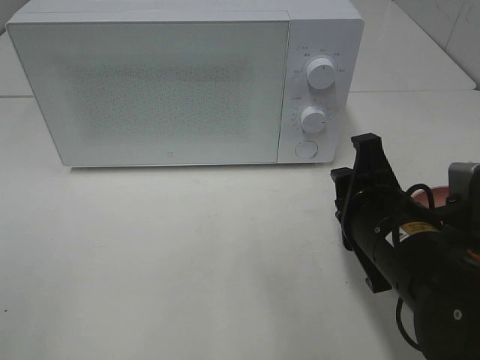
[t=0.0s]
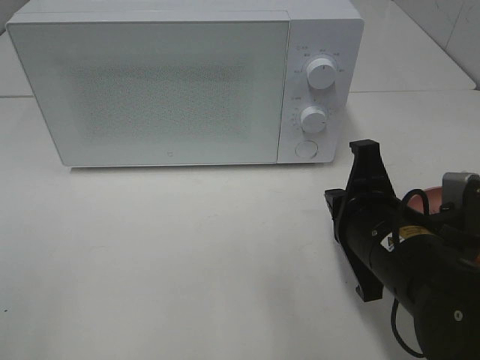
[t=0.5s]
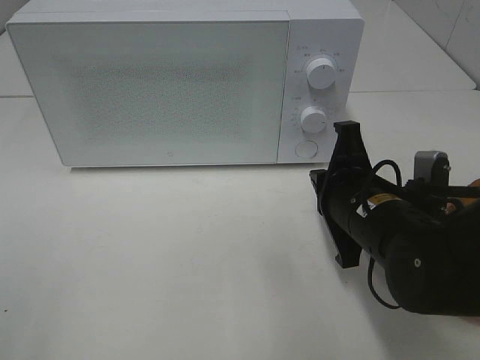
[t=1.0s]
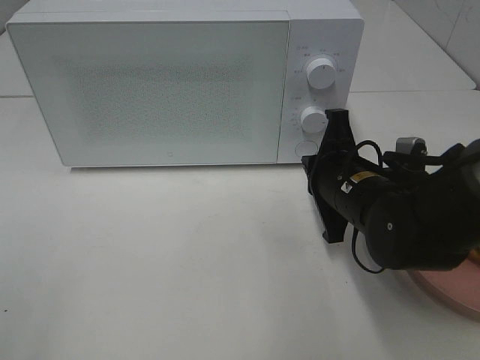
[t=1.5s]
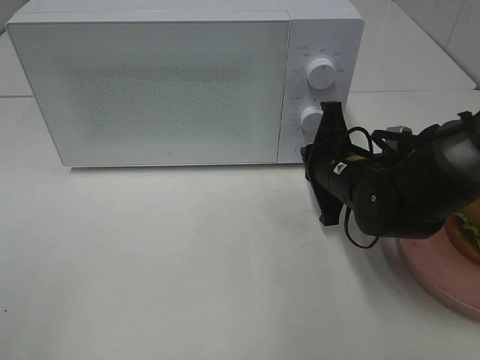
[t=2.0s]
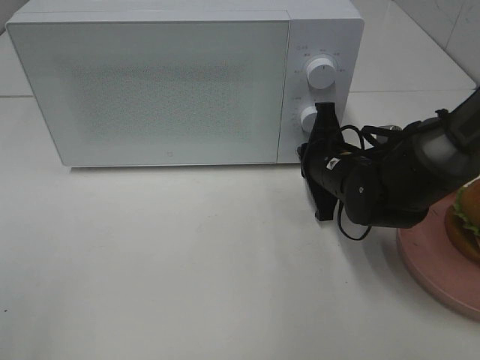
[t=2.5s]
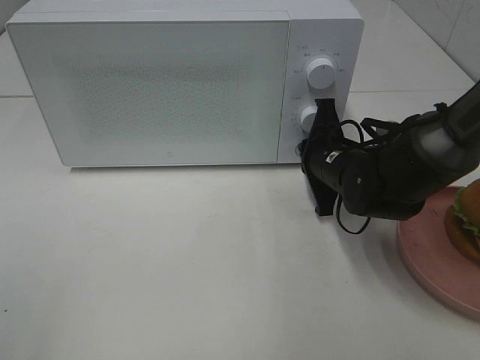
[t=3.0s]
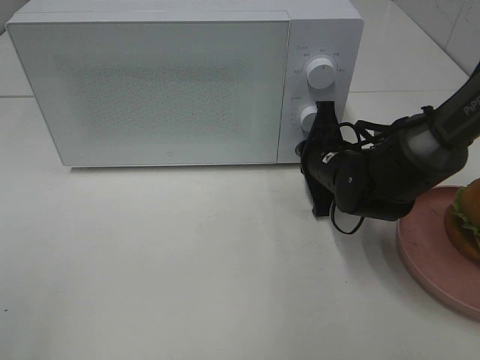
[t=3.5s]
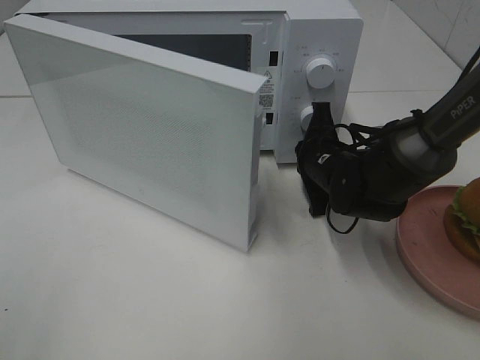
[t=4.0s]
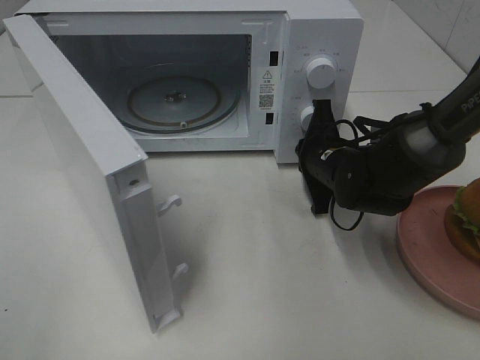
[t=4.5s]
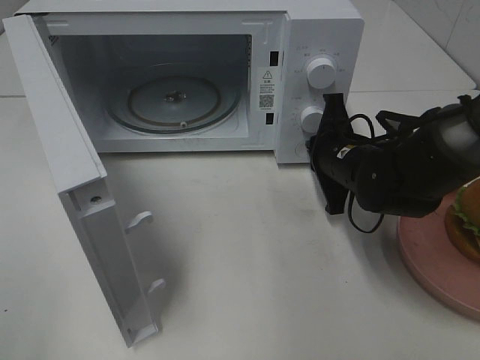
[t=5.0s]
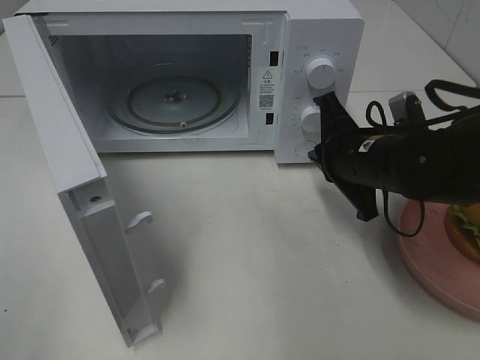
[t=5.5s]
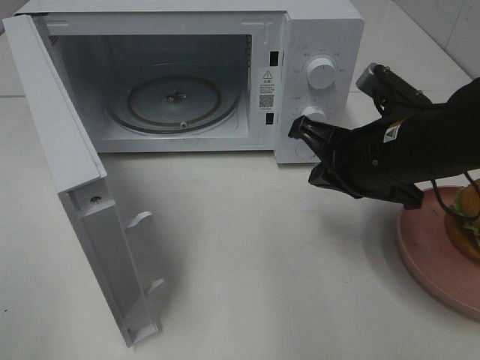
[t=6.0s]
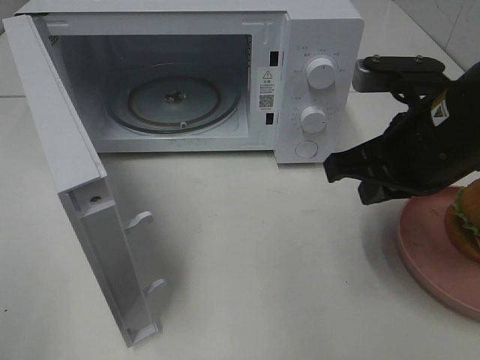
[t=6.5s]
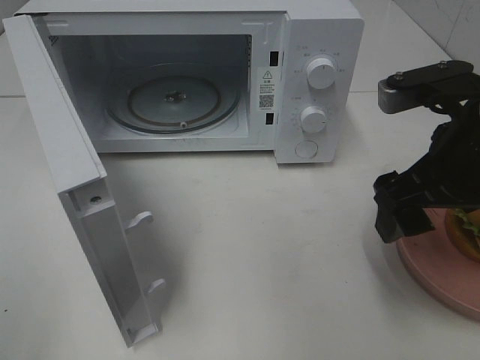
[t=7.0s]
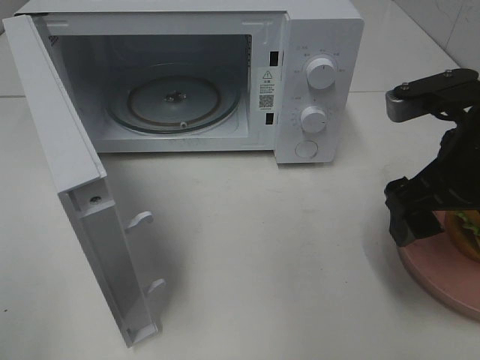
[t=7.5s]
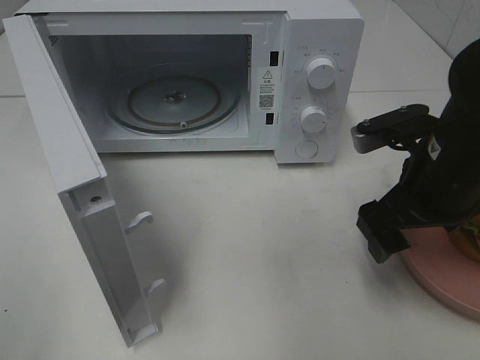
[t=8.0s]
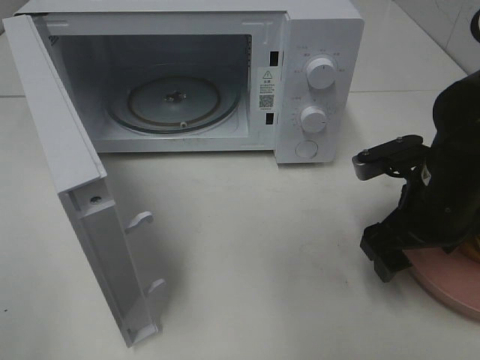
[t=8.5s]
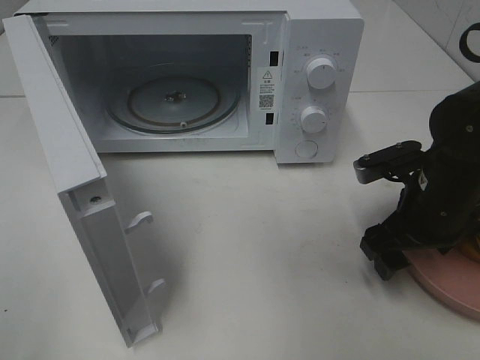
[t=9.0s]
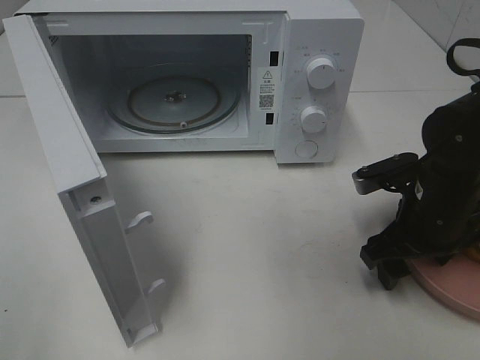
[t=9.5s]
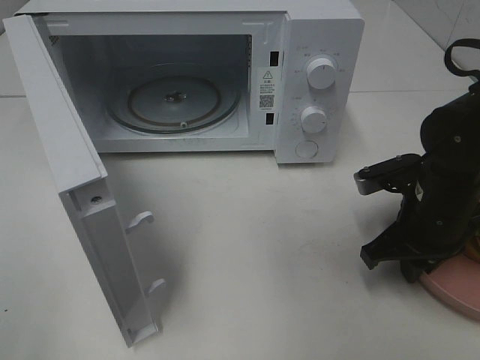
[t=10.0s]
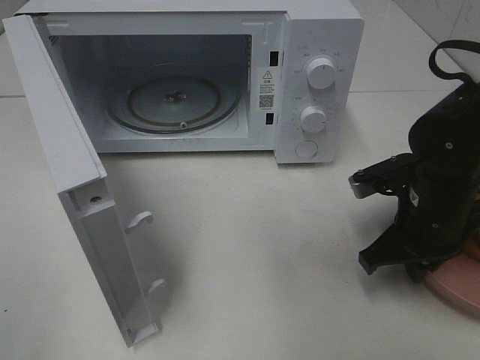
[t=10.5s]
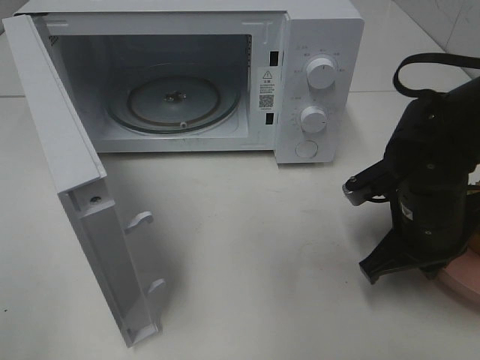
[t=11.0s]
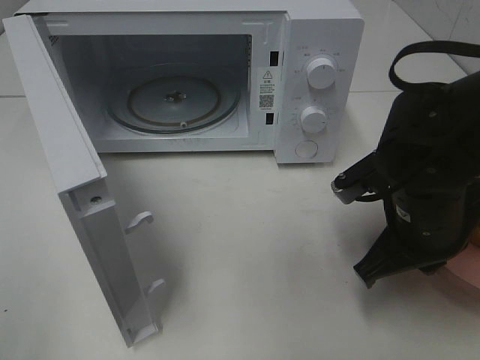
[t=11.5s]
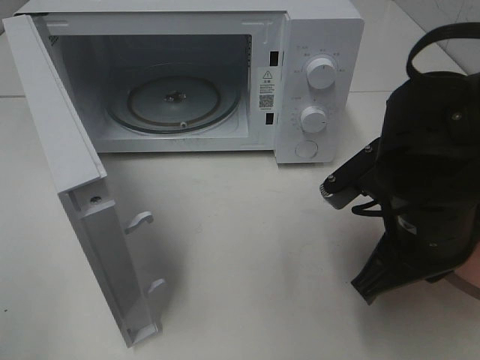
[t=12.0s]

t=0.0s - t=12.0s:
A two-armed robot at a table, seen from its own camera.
Task of the whole recording: Heat the burger.
Step, t=0.0s - t=5.0s: Right hand: press the switch.
Step, t=5.5s - t=10.5s: Right hand: grab the plate with the hamburger.
t=0.0s - t=2.0s: The right gripper is displaced forward by about 15 cm, and closes its fingers.
t=2.0s - t=4.0s: The right gripper ends up roughly 5 cm from where it was.
t=4.0s - t=6.0s: The right gripper moves upward and backward, some 15 cm.
t=6.0s - t=8.0s: The right gripper opens up.
t=8.0s - t=10.0s: The right gripper moves downward, some 5 cm, and closes its fingers.
t=10.0s - t=12.0s: The right gripper shifts about 10 cm backward, to the left and upward.

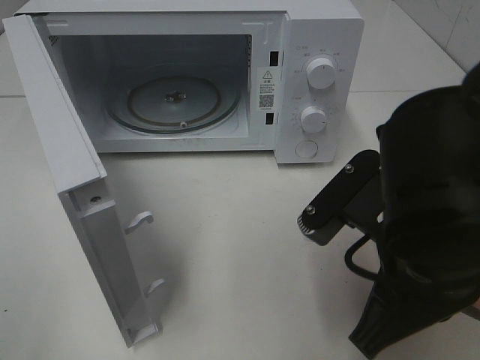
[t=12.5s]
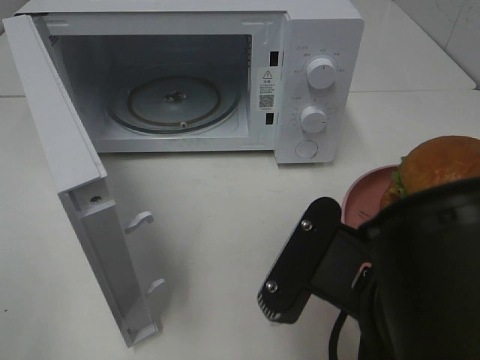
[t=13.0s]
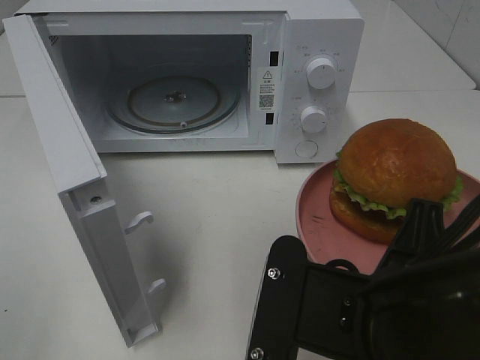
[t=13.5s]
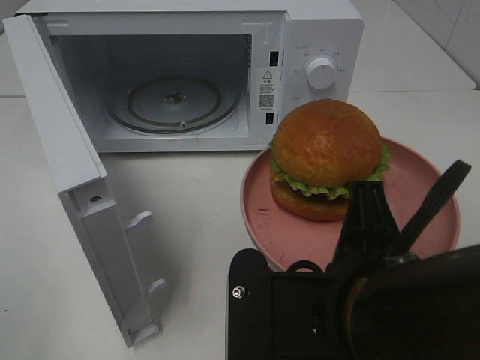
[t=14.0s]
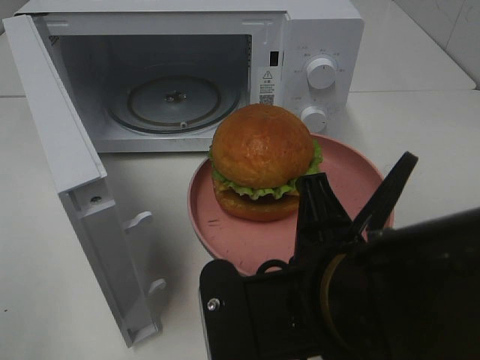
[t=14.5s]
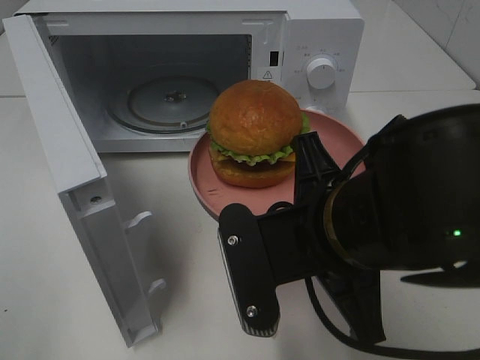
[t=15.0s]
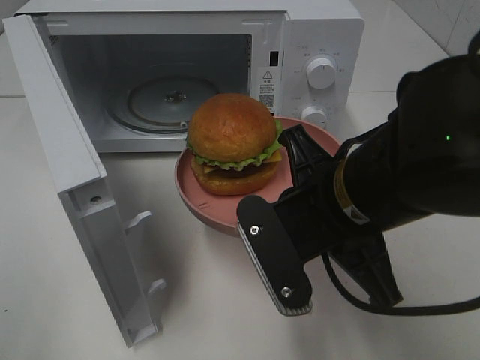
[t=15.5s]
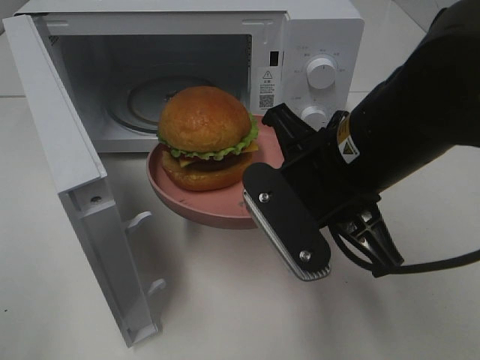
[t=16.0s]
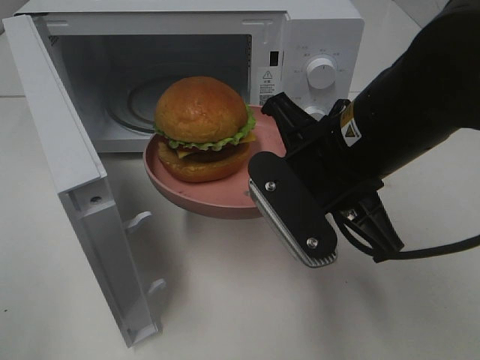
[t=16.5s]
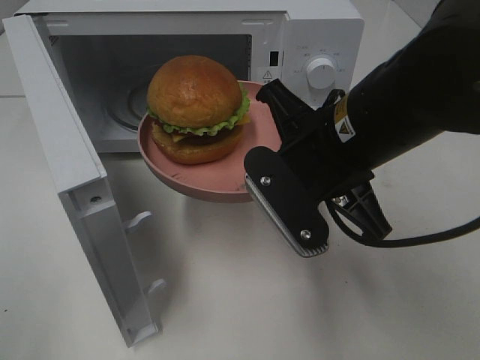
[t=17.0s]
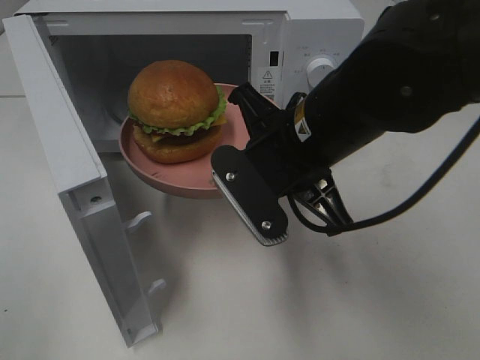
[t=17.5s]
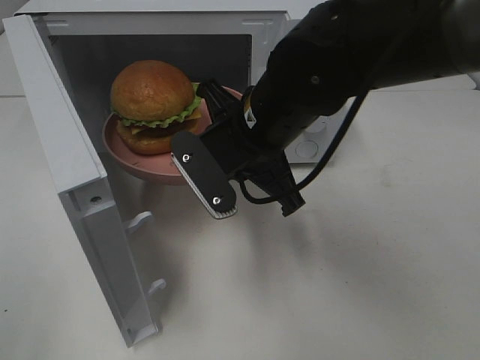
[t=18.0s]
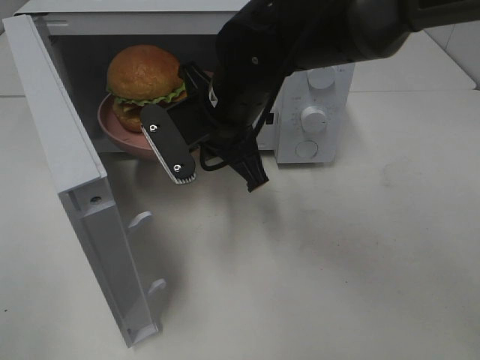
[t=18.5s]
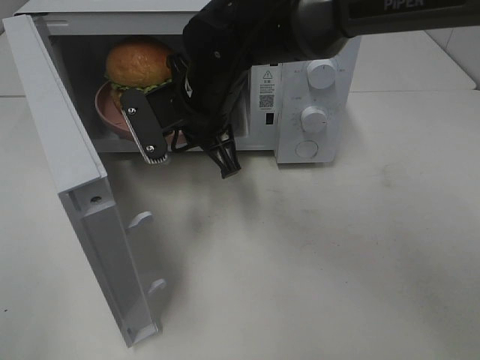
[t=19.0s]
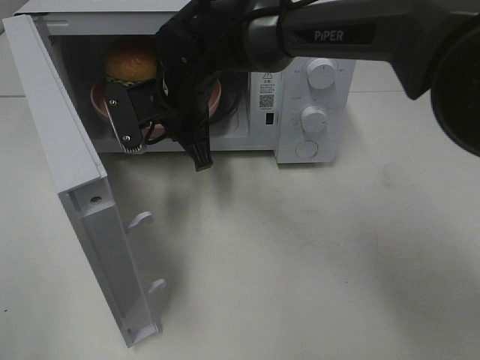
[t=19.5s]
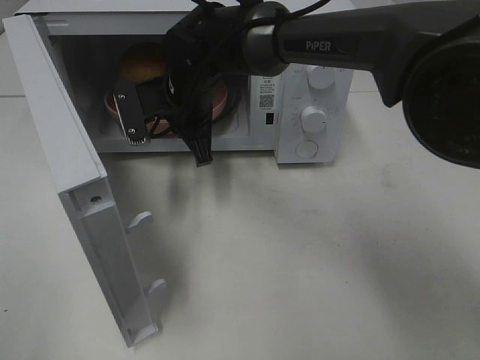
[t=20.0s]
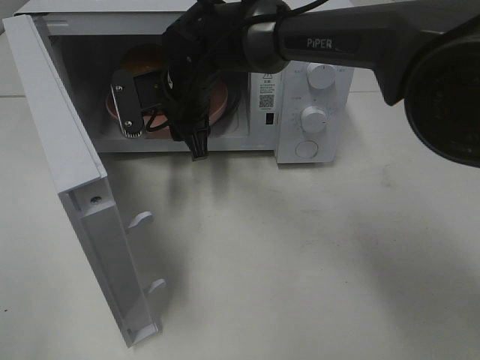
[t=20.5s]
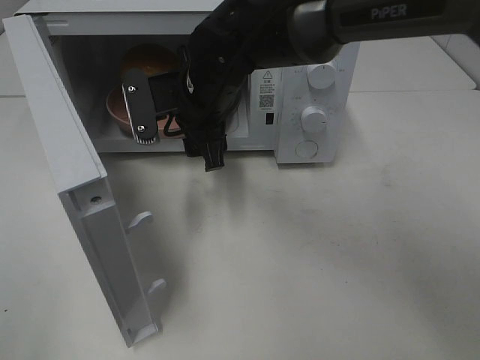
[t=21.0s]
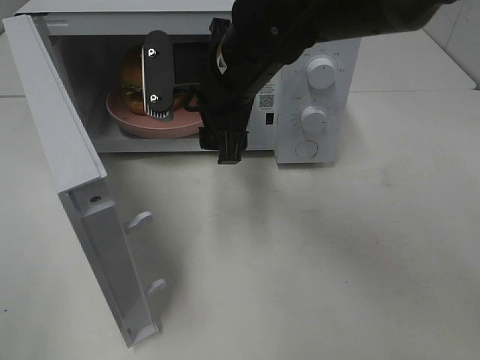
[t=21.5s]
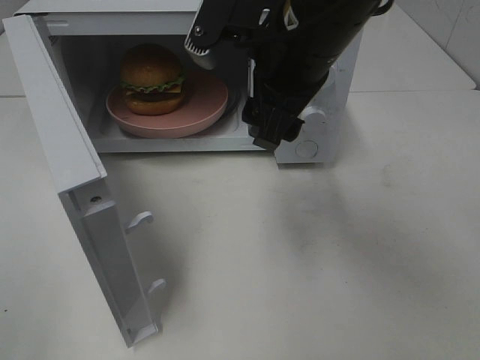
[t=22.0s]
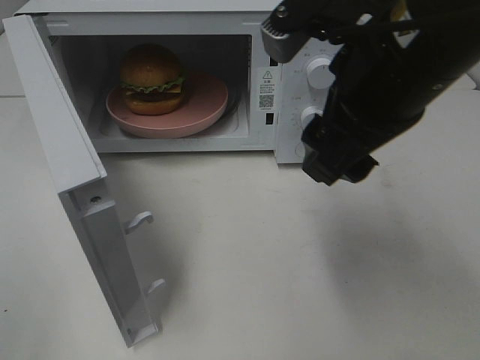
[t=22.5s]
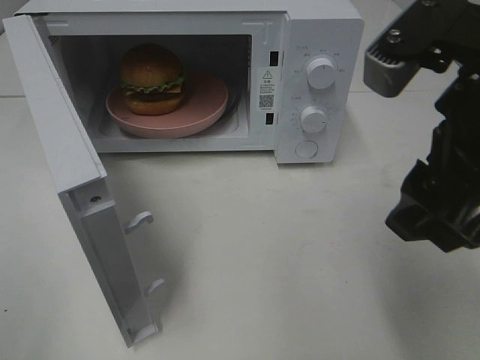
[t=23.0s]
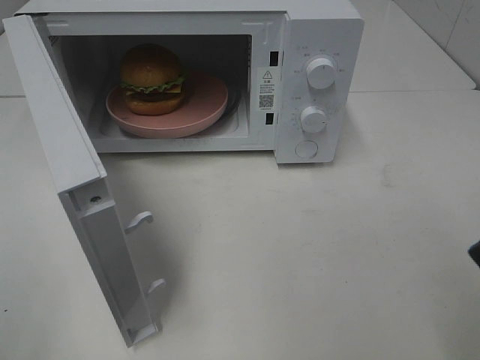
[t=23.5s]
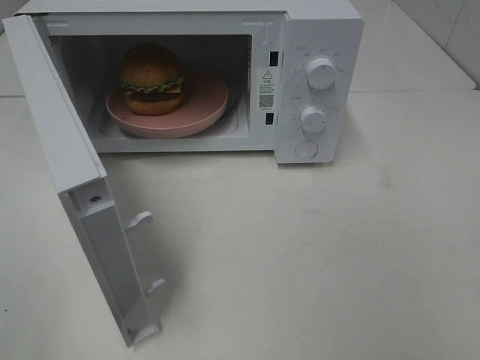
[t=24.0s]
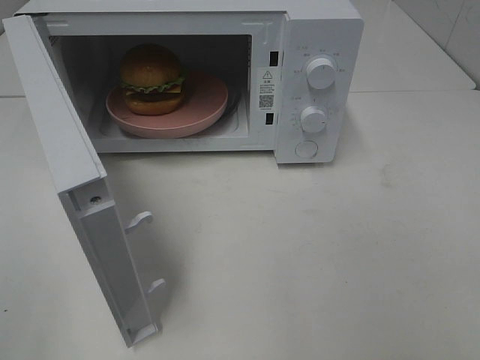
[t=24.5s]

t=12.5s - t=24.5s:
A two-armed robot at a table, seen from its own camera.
Task of the whole recording: Heat the burger.
Step, t=12.5s - t=21.0s: Right hand: place the plate in the microwave.
t=12.5s - t=14.5s: The right gripper moves to the left, approximately 5 cm.
t=14.5s - t=16.5s: The right gripper is displaced forward by some 10 cm.
t=16.5s - t=18.5s: The right gripper shifts some 15 cm forward and to the left.
t=18.5s - t=20.5s: The right gripper travels forward by about 10 cm, and opens.
t=20.5s - t=22.5s: The right gripper goes about 30 cm backward, to the right and upward.
t=22.5s - t=24.5s: The right gripper shifts roughly 25 cm backward and to the right.

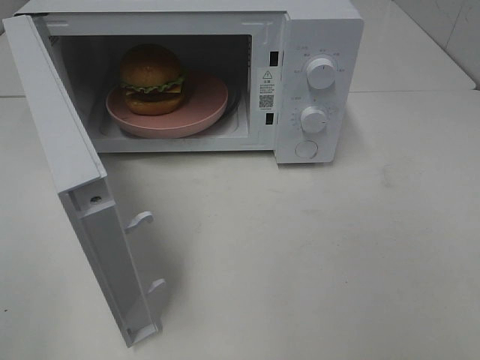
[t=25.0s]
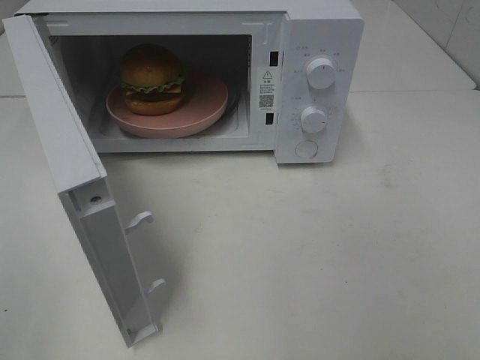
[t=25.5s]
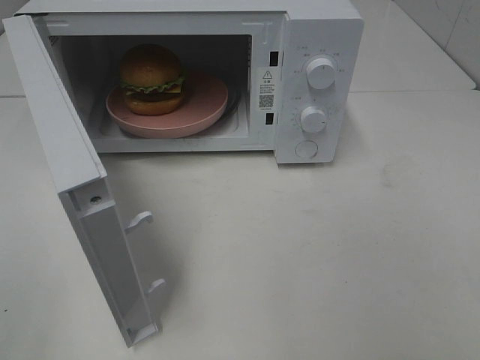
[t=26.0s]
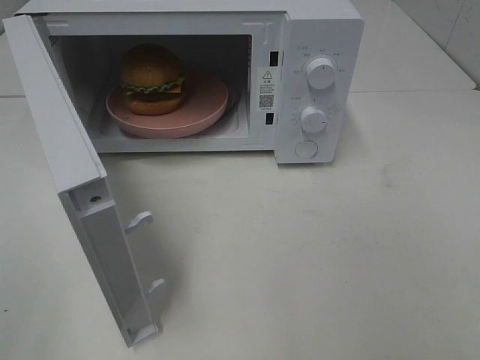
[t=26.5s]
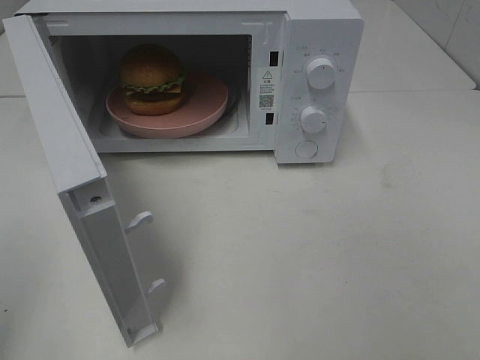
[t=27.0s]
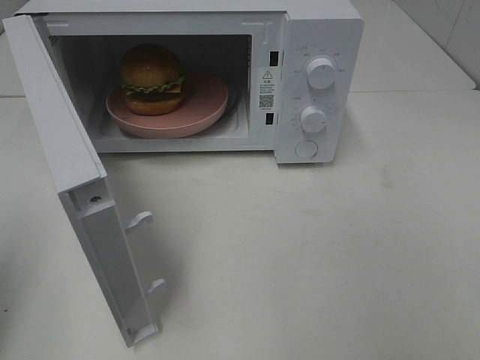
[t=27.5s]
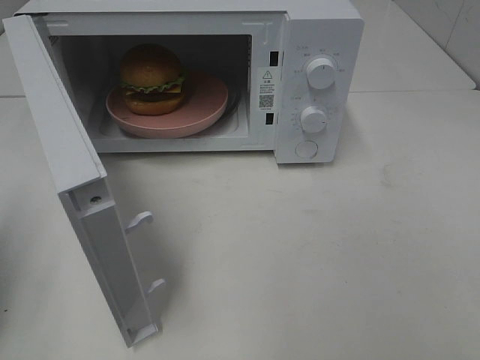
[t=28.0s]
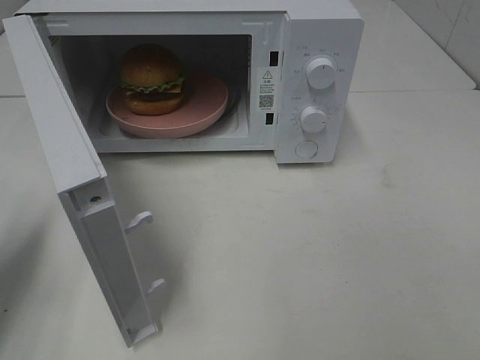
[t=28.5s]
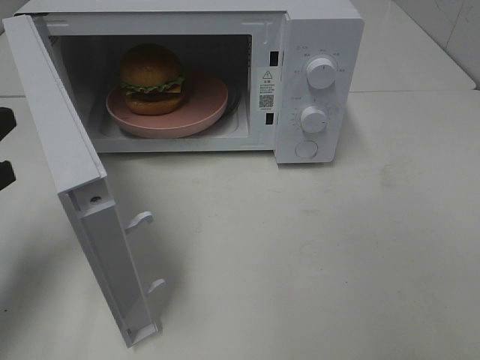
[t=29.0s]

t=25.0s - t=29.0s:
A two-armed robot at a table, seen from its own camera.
Task of the whole recording: Heat the burger.
t=27.0s - t=29.0s: The left gripper heads forward and downward, covering about 20 cm.
